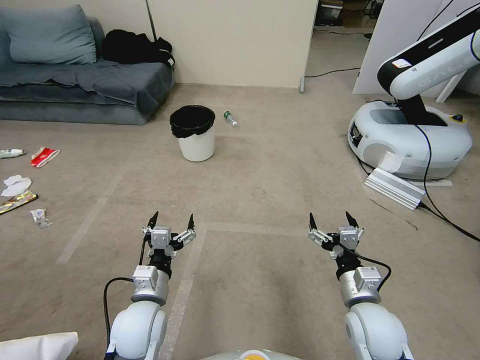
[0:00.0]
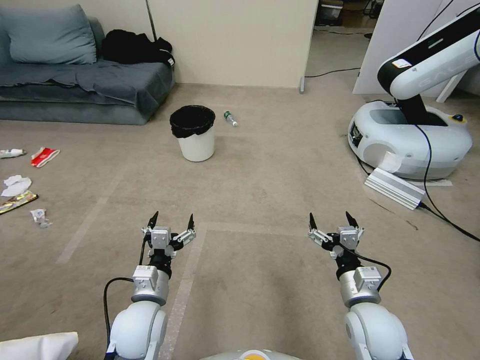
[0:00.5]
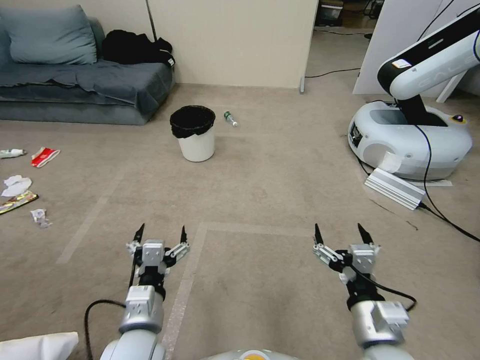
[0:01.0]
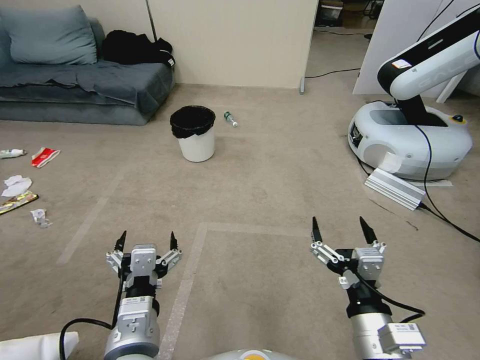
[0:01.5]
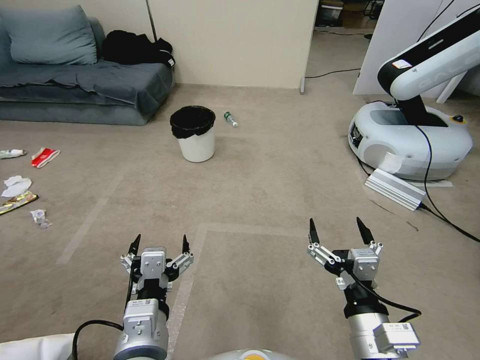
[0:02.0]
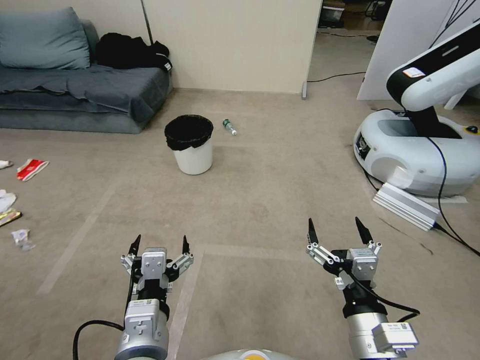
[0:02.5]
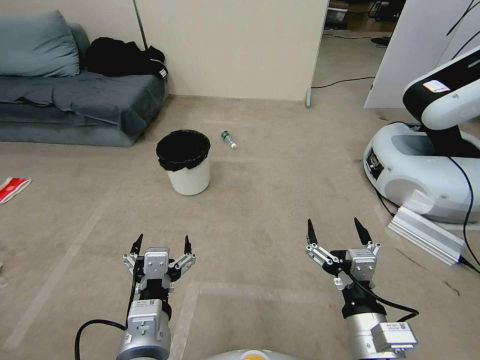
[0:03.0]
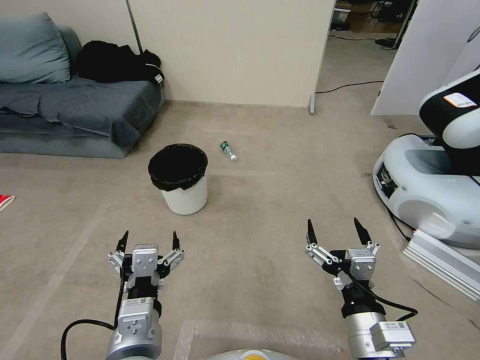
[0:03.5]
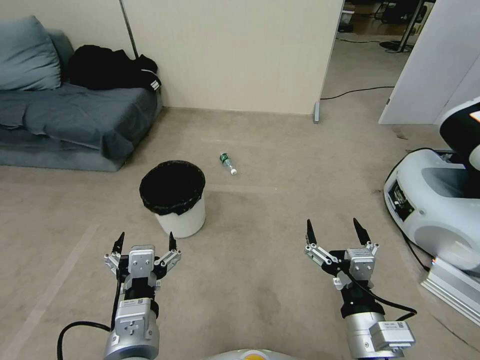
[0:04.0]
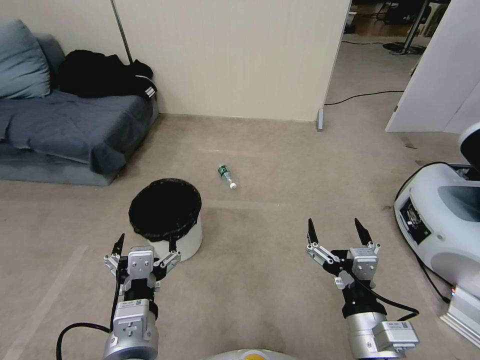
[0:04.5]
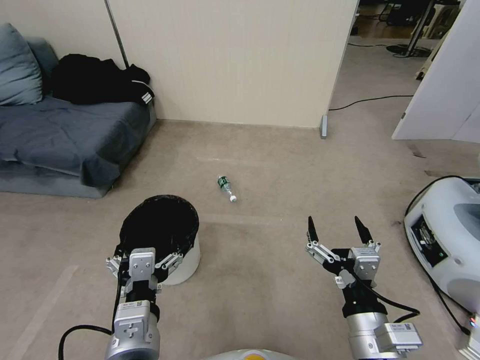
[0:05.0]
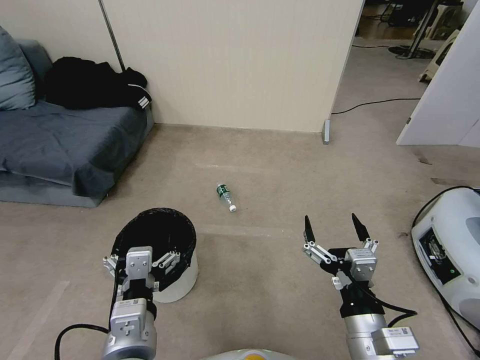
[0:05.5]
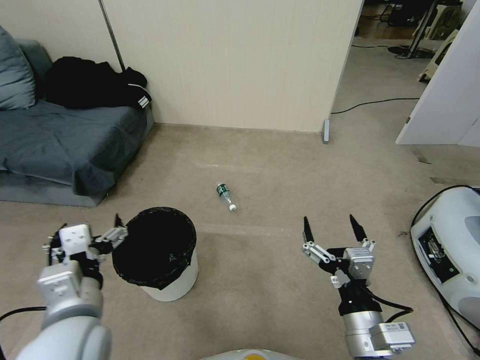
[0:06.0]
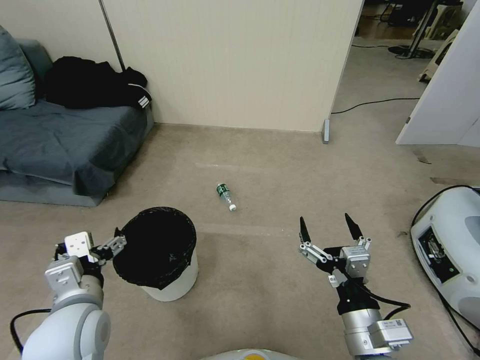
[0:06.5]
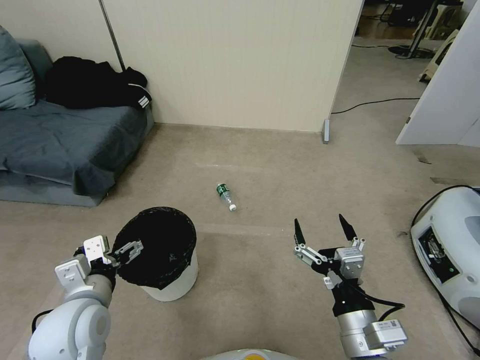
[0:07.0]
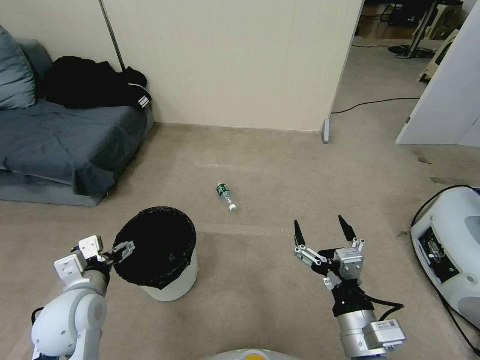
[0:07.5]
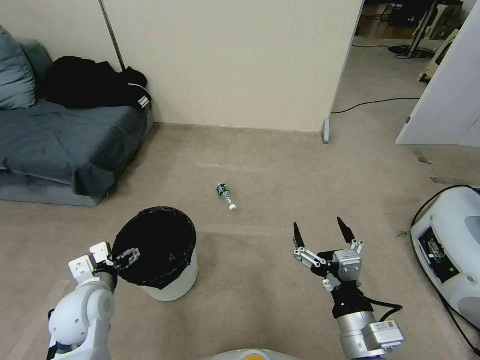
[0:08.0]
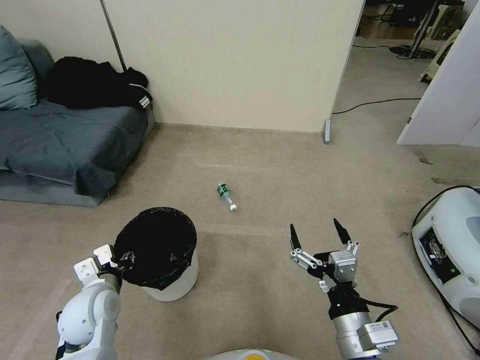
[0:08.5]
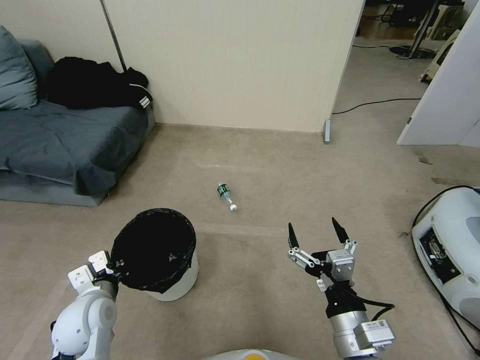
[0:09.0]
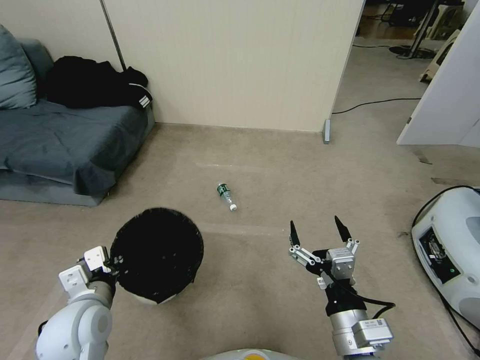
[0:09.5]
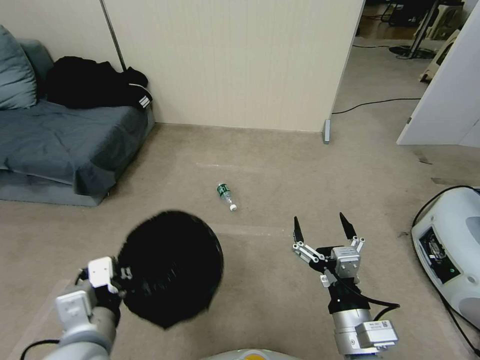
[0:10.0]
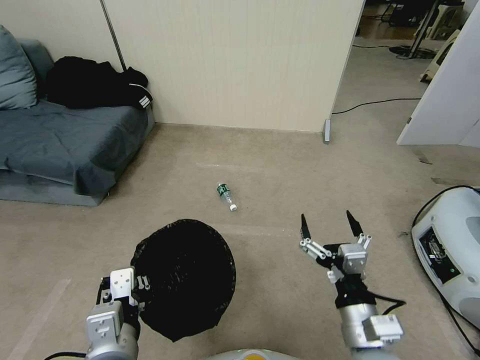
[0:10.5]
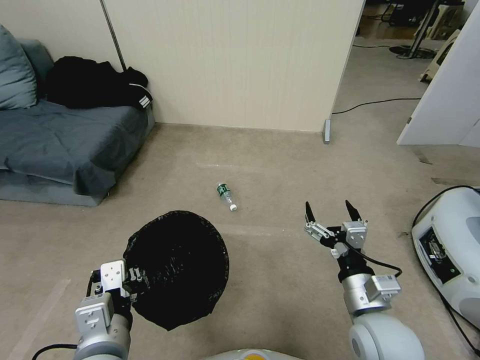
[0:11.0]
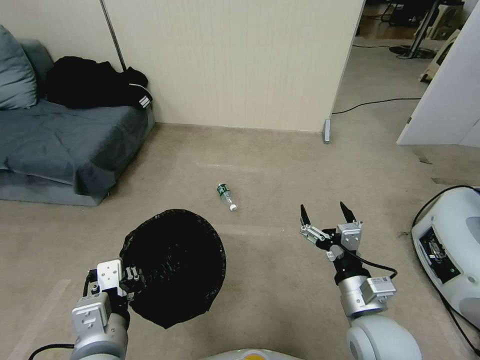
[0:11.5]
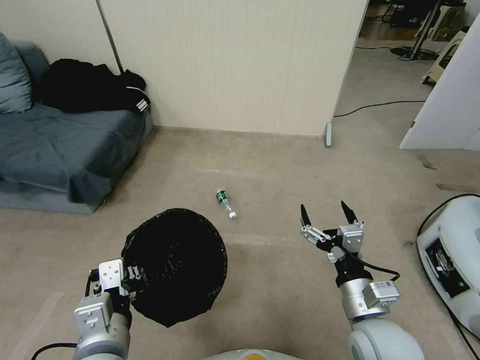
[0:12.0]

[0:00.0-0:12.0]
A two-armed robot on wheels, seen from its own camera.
Task of the whole recording: Pick up the trash bin, then pick up the garbage from the floor and place it into the trash bin.
4.0 to 6.0 s: The left gripper shifts about 5 cm to the left.
6.0 to 8.0 s: The left gripper goes roughly 15 cm downward, to the left and forward.
8.0 to 10.0 s: The left gripper shifts roughly 15 cm upward, backward and to the right, and closes up.
10.0 to 12.0 s: The right gripper is displaced forward by some 5 cm.

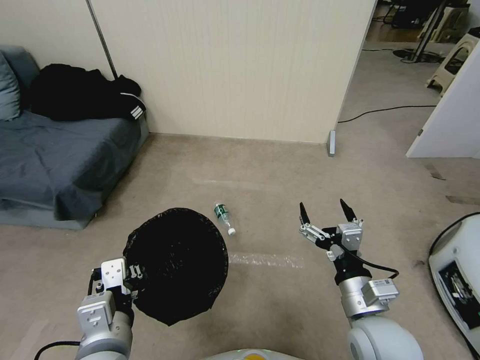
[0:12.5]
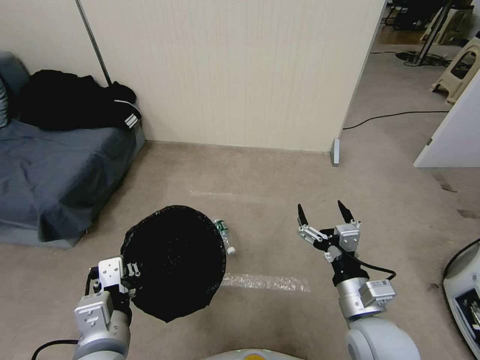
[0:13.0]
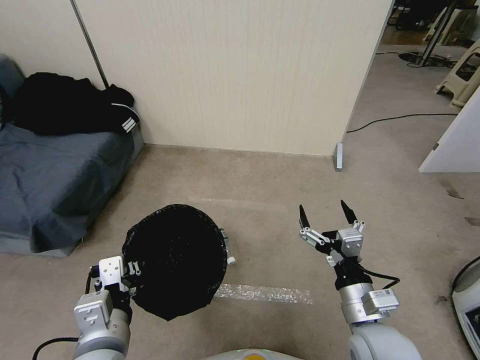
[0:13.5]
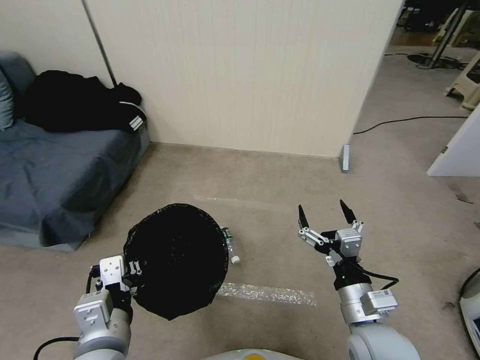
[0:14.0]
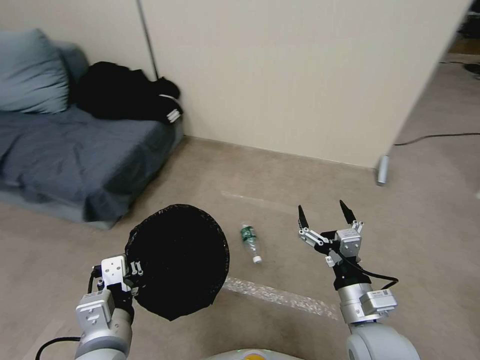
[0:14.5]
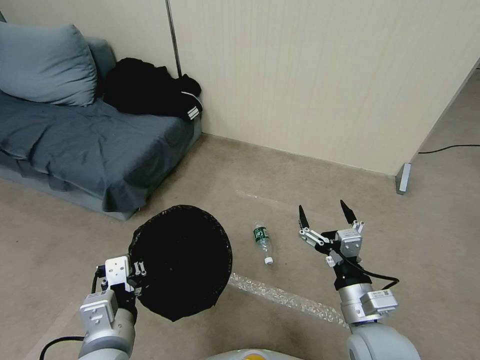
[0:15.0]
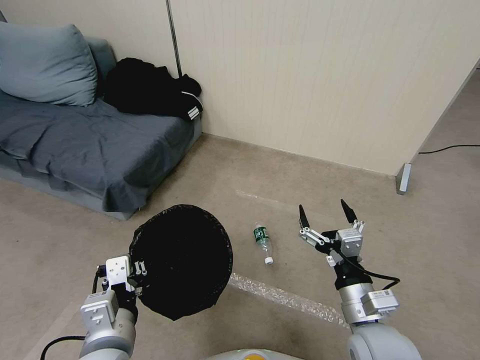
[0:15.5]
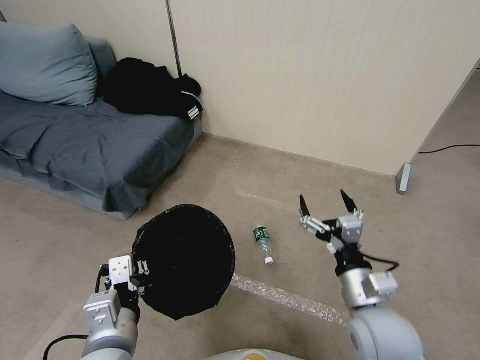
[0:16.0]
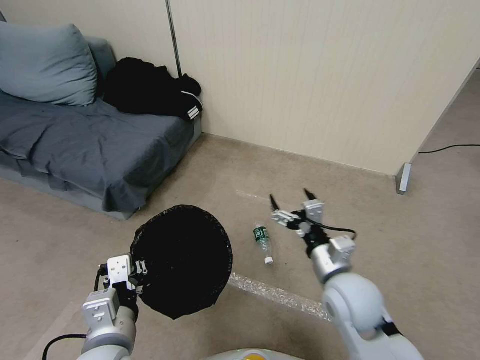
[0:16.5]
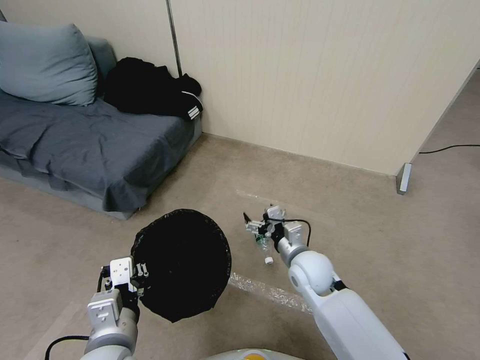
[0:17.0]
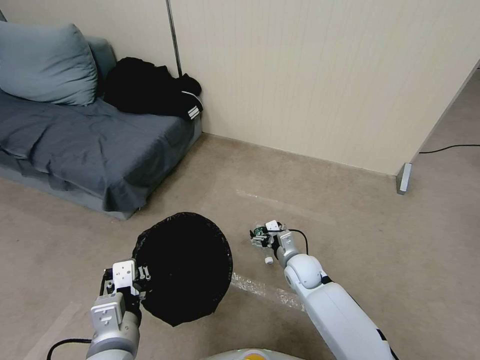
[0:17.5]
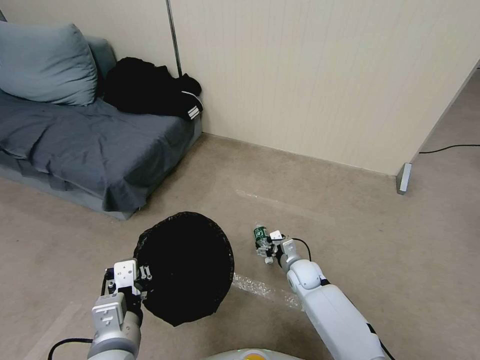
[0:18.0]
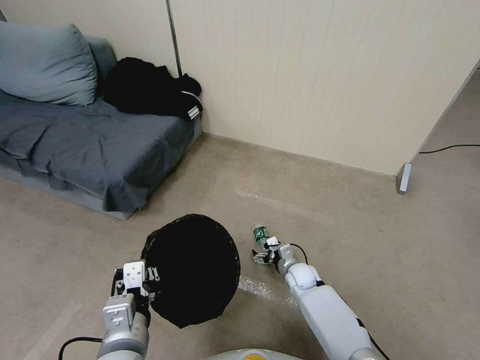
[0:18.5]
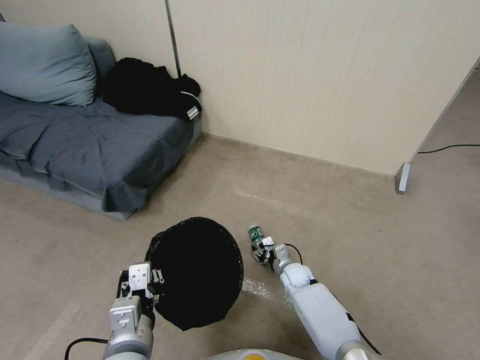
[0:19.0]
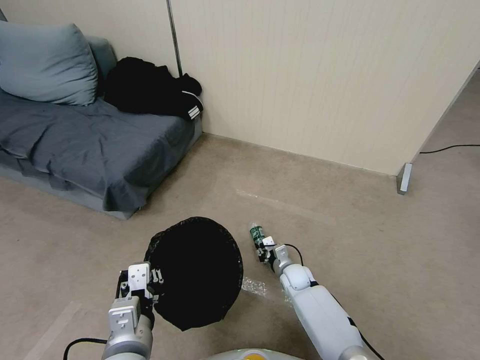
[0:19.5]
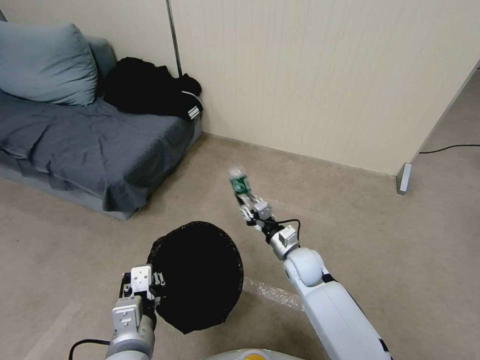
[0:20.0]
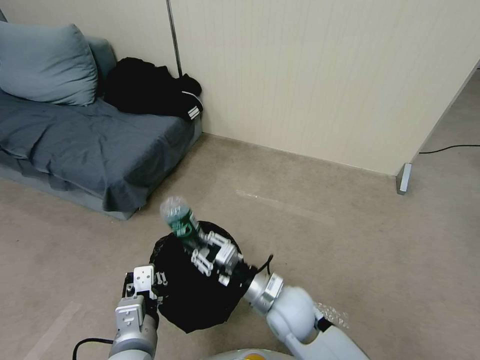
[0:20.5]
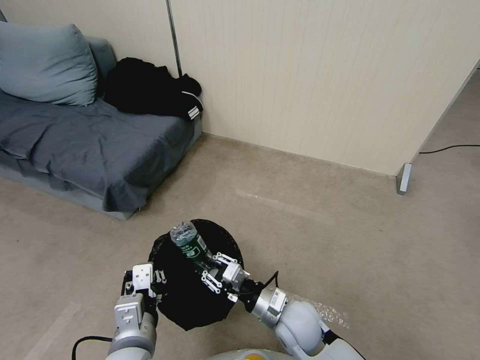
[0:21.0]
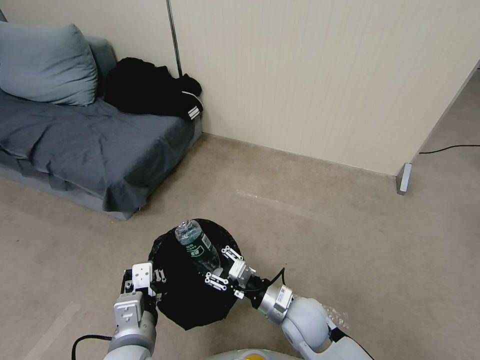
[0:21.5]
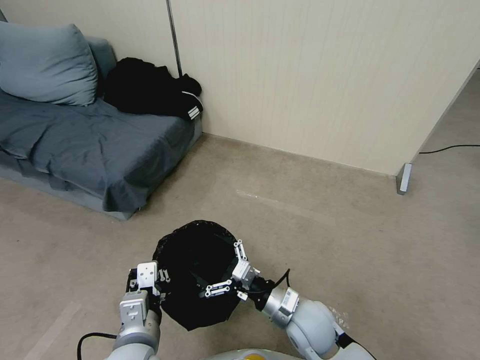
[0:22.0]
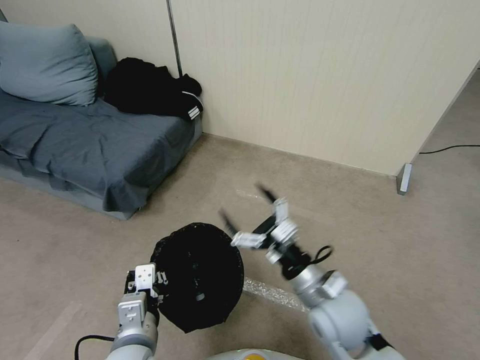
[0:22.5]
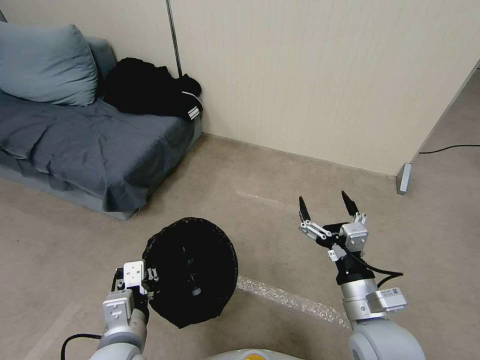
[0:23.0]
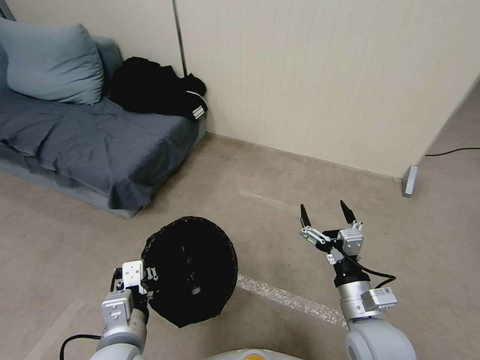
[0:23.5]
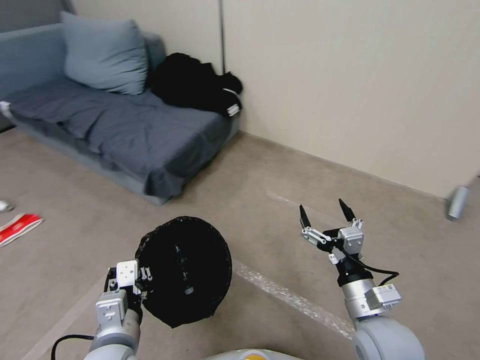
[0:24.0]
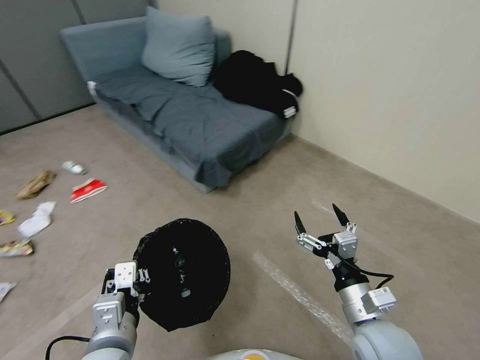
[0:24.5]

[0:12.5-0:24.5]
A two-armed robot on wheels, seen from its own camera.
Task of the whole recording: Pick up the trash bin, then pick up the garbage from the floor and place it into the trash bin.
14.5 to 16.5 s: The right gripper travels forward by approximately 10 cm.
16.5 to 18.5 s: The right gripper moves downward and forward, approximately 30 cm.
18.5 to 20.5 s: The right gripper travels upward, backward and to the left by about 25 cm, and closes its fingers.
20.5 to 22.5 s: The right gripper heads to the right and upward, covering approximately 10 cm, and opens its fingers.
22.5 to 24.5 s: The right gripper shifts roughly 10 cm to the right.

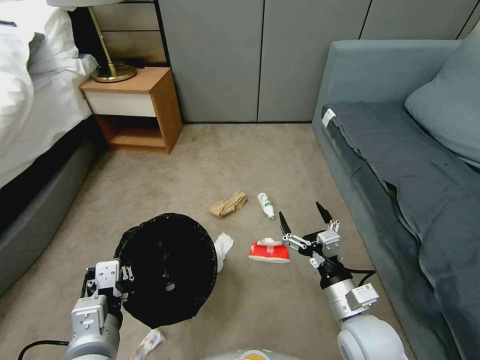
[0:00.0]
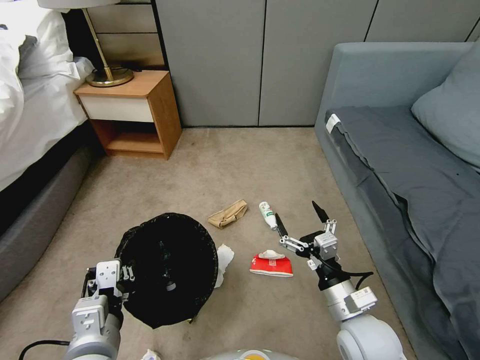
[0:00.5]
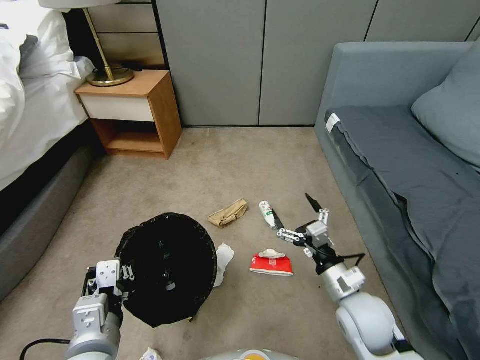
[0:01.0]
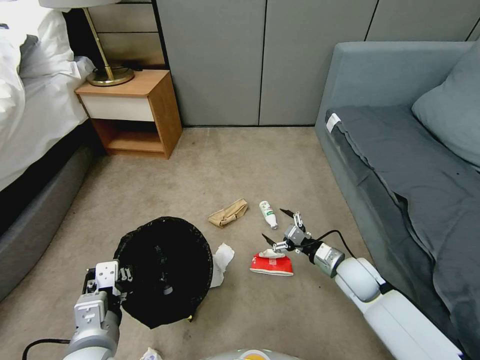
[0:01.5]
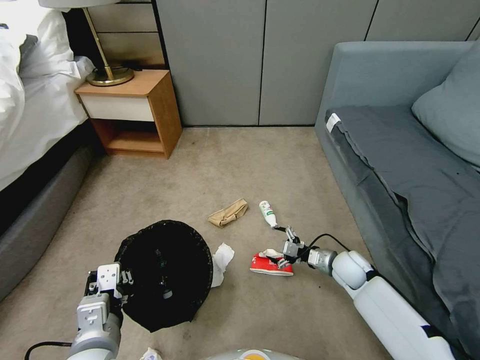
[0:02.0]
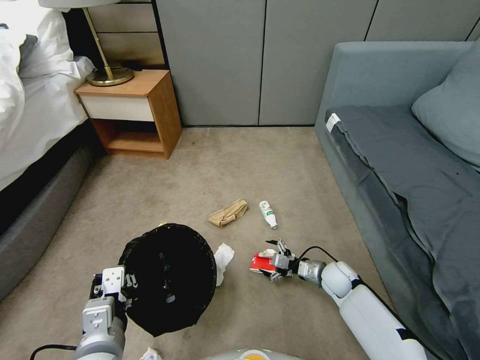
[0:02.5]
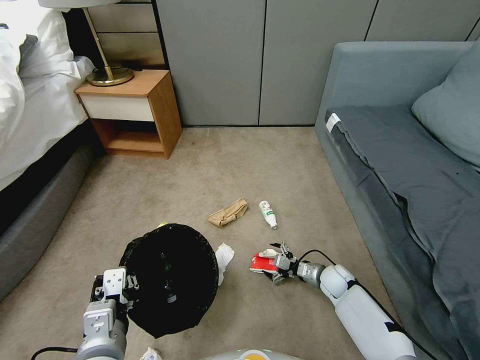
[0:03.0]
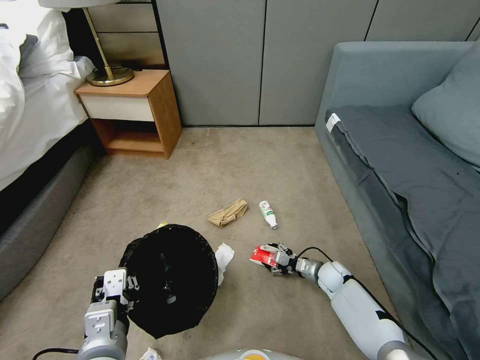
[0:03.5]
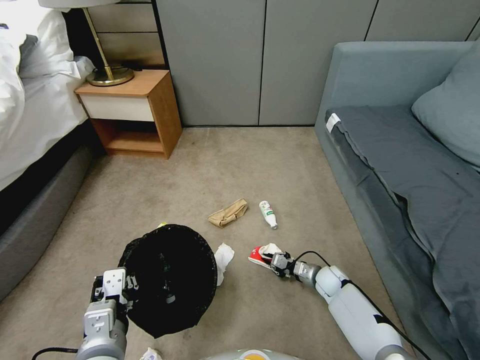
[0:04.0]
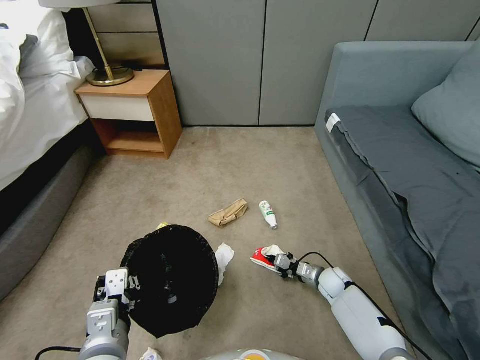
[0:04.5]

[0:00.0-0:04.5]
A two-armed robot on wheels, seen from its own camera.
Task of the whole recording: Pick up the trash bin, then pick up the garbage from the floor and place it into the trash bin.
0.0 to 2.0 s: The right gripper travels forward, downward and to the right by approximately 25 cm.
2.0 to 4.5 s: The right gripper moves downward, some 10 cm, and closes.
